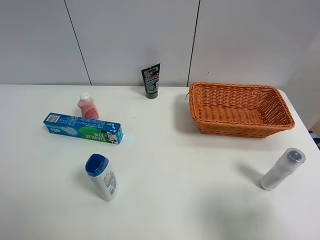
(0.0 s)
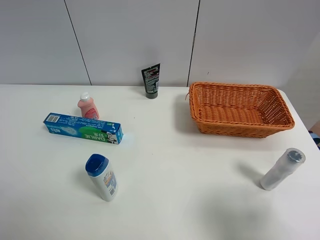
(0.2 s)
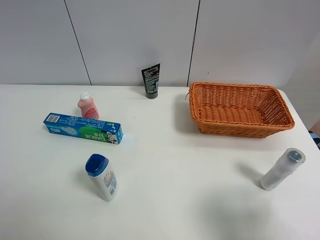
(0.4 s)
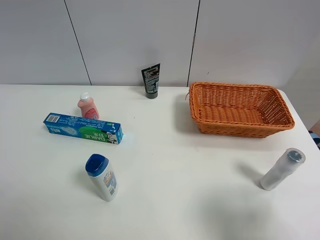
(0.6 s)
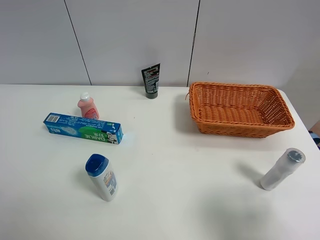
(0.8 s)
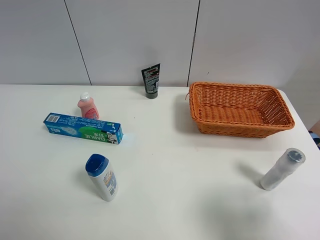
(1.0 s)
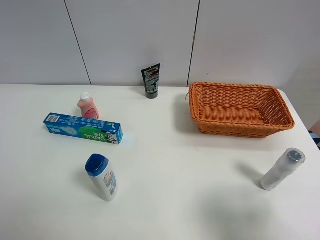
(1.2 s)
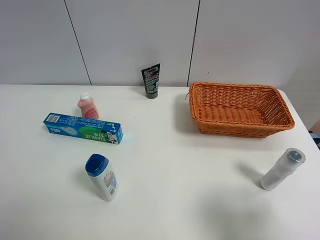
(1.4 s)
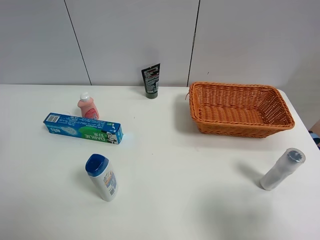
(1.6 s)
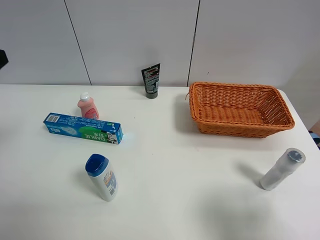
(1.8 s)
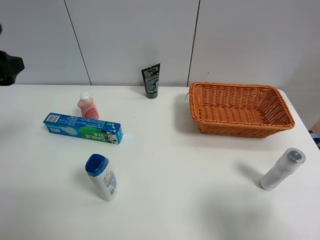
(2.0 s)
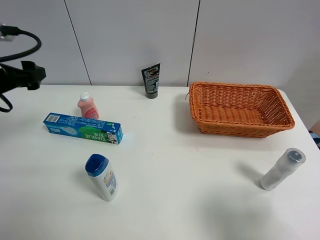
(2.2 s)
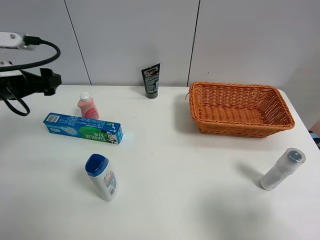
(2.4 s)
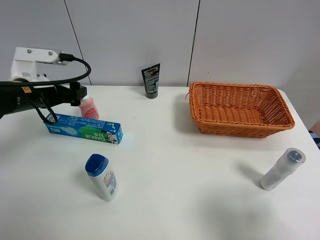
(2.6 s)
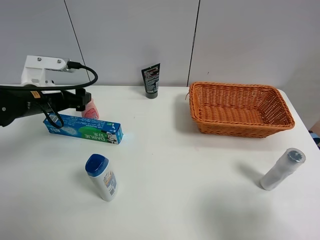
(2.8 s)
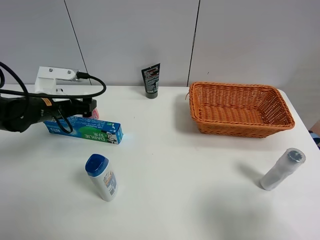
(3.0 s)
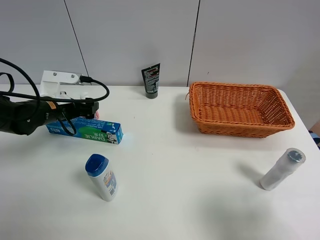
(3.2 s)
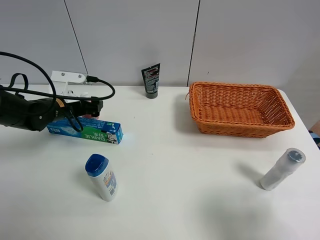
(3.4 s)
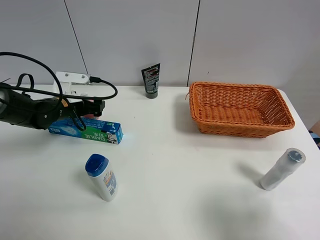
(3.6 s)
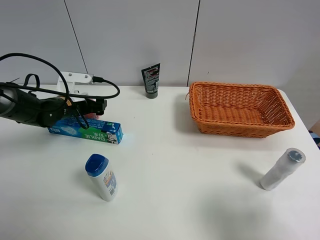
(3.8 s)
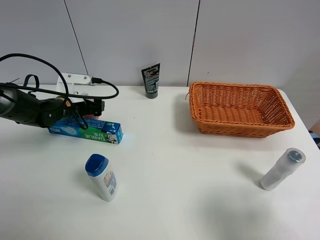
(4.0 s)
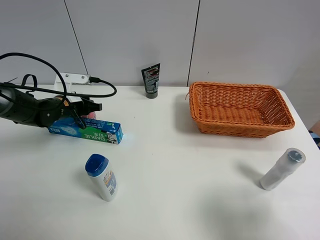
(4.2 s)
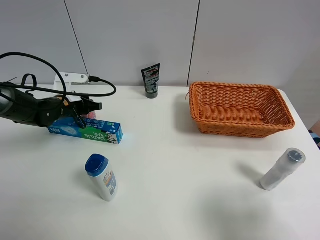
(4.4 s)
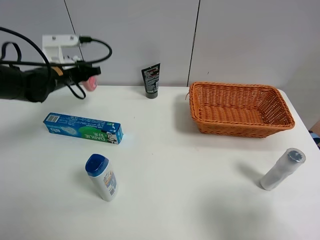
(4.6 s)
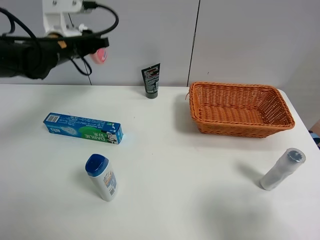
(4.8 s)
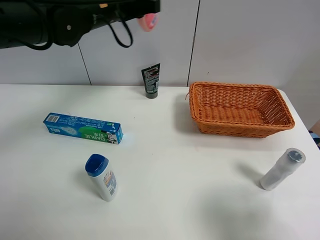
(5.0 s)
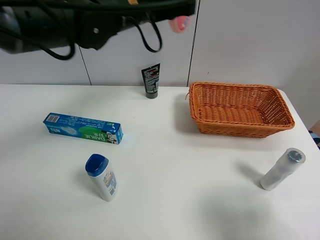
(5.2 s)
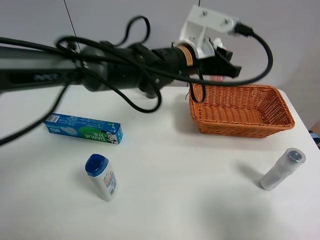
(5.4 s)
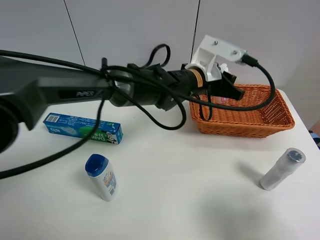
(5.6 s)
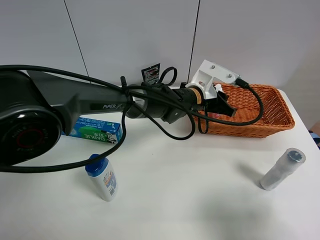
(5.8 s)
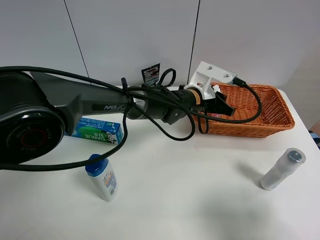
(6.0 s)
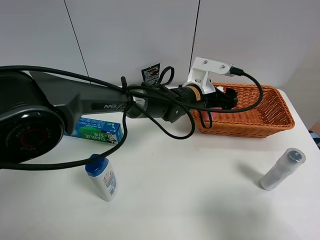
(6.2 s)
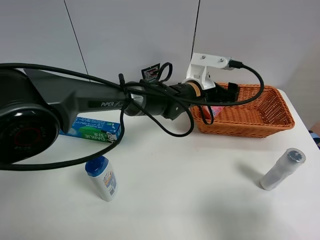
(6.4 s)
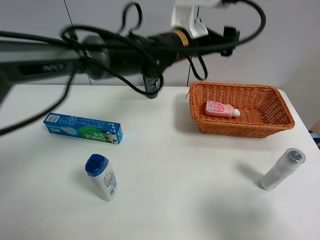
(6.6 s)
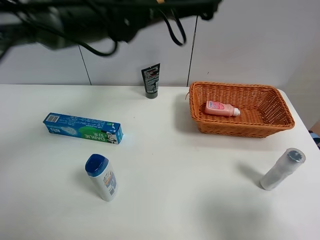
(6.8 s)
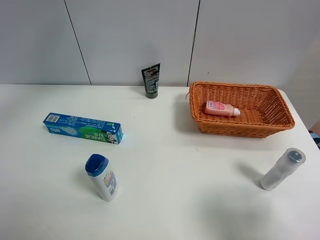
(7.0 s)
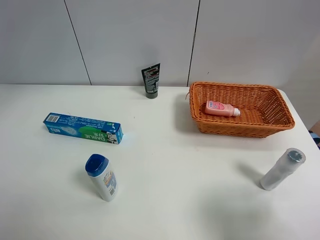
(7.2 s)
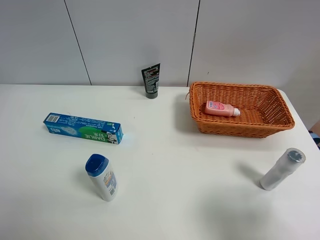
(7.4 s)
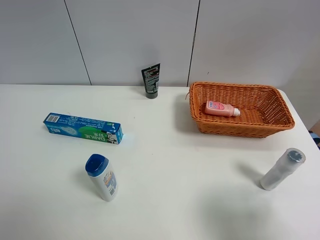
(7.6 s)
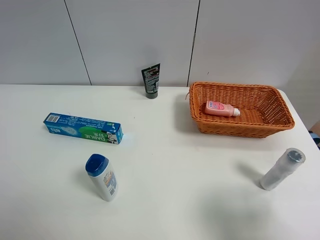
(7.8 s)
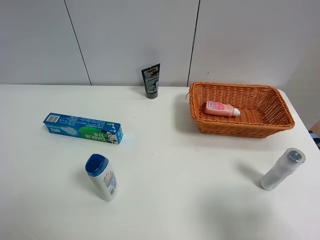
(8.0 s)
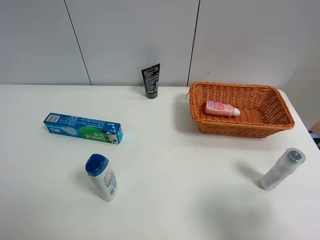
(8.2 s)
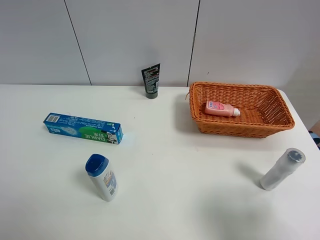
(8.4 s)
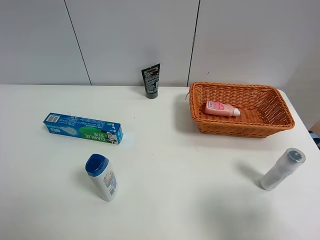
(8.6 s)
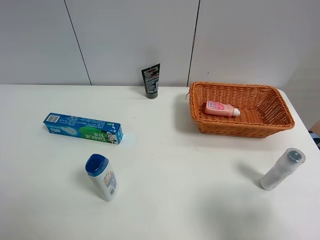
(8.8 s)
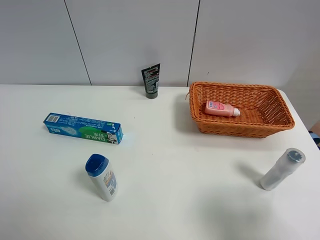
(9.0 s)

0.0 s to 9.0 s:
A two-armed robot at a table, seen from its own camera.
Task of the whole recording: Place the object closest to the toothpaste in the basket.
Step, 0.0 to 4.2 s: Grasp the pink laundry detergent with left gripper.
Step, 4.4 to 6.4 s: Place the pink laundry detergent in the basket with left gripper.
1.6 to 3.0 s: The left gripper heads forward and downward, covering roughly 30 cm.
3.0 to 4.4 s: The left gripper moves forward, about 5 cm, and closes up.
4.4 to 6.0 s: The left gripper moves to the right, approximately 35 cm.
6.0 to 7.6 s: The left gripper goes some 50 cm to the left, upward and backward, and opens its fingers.
